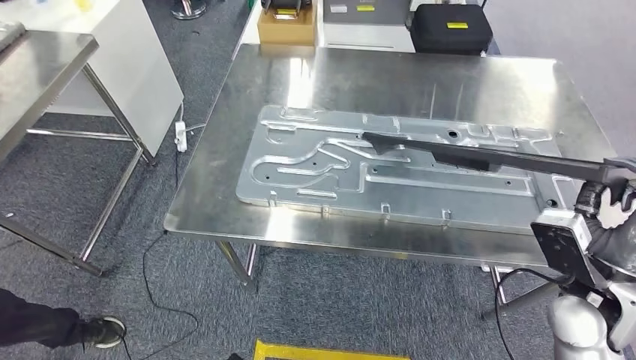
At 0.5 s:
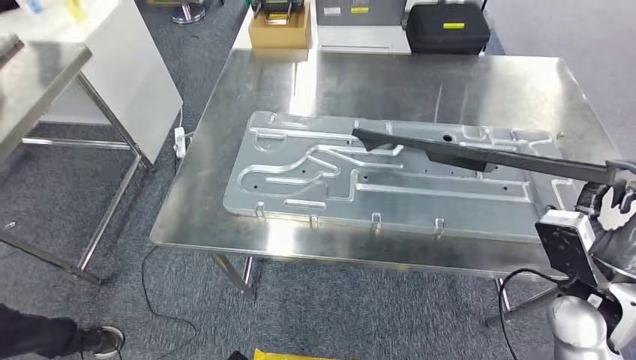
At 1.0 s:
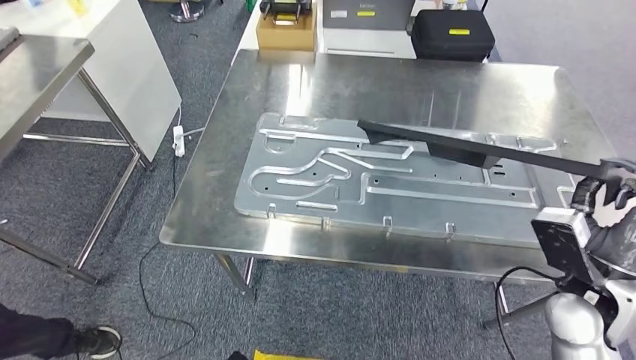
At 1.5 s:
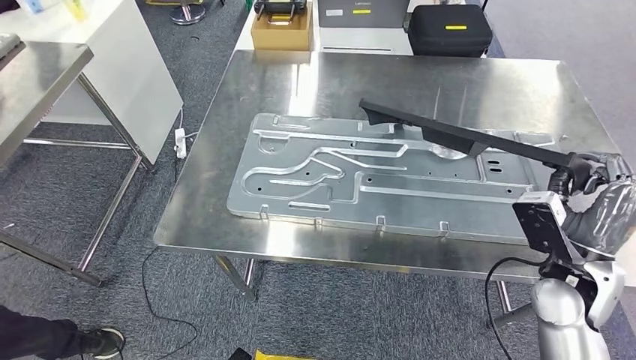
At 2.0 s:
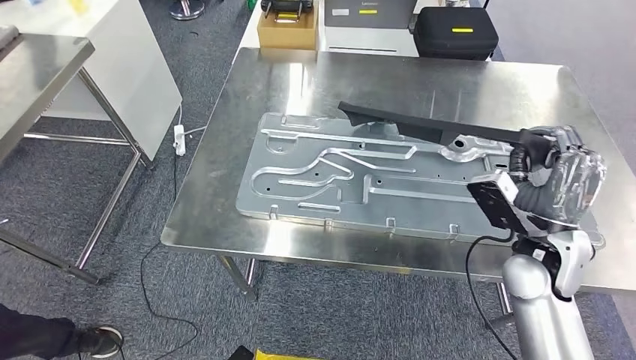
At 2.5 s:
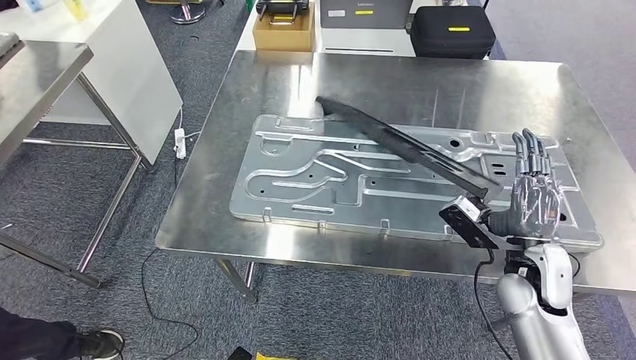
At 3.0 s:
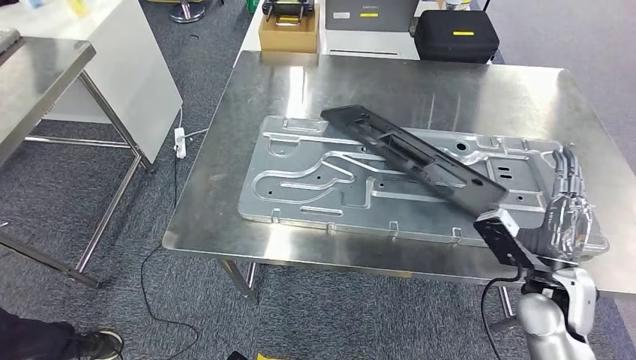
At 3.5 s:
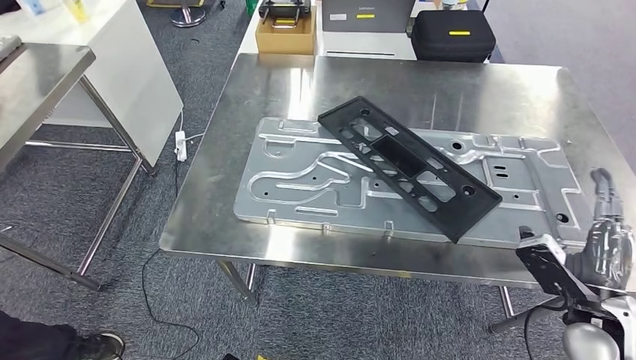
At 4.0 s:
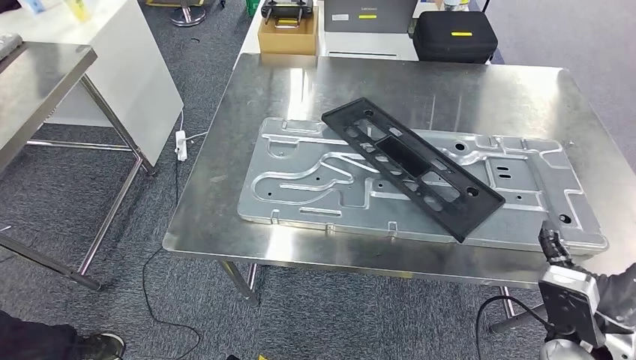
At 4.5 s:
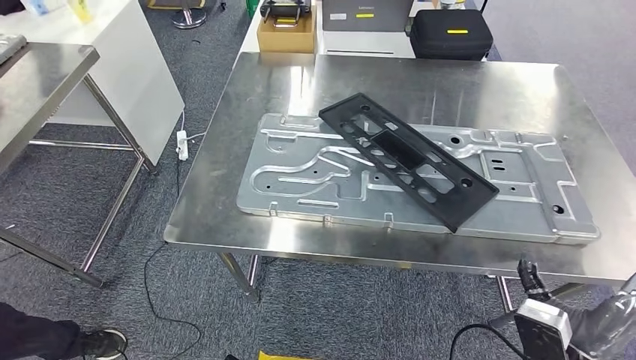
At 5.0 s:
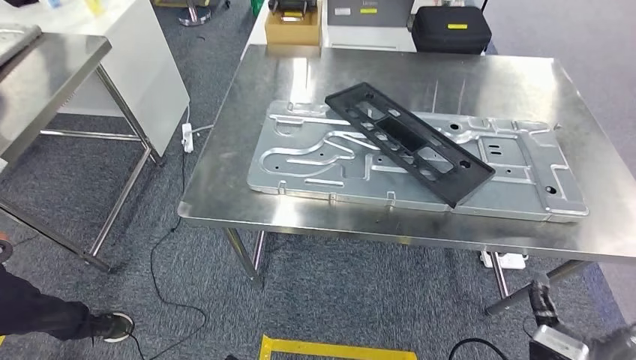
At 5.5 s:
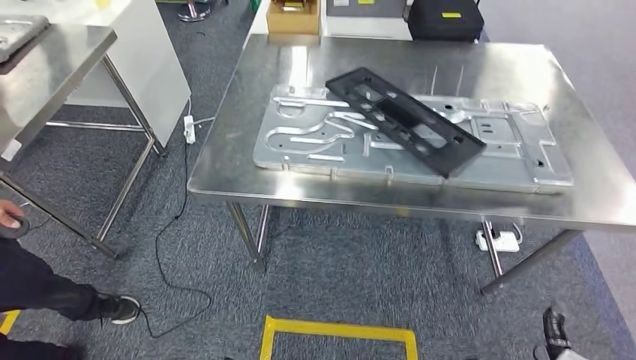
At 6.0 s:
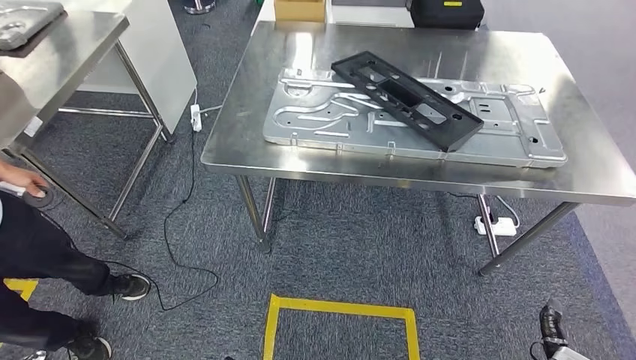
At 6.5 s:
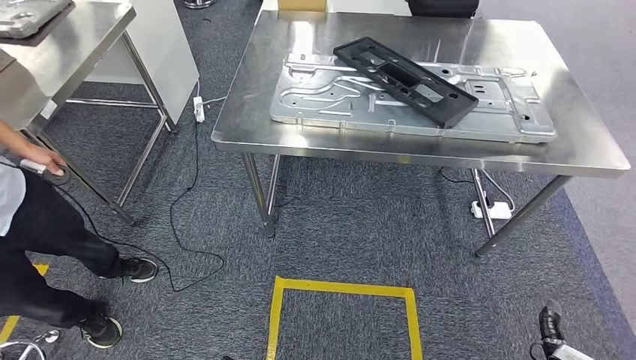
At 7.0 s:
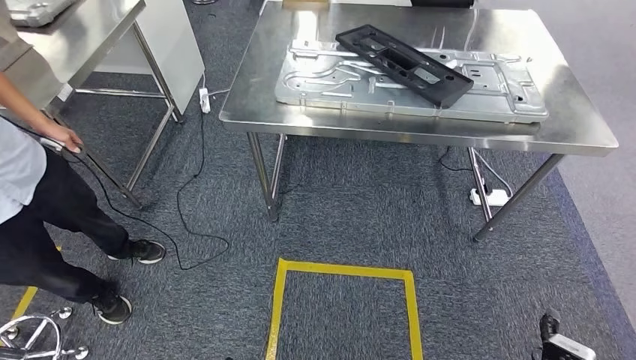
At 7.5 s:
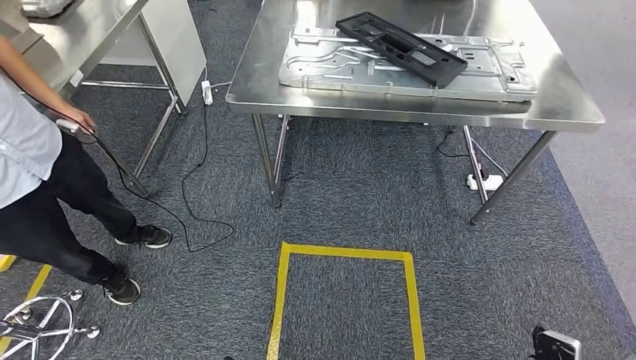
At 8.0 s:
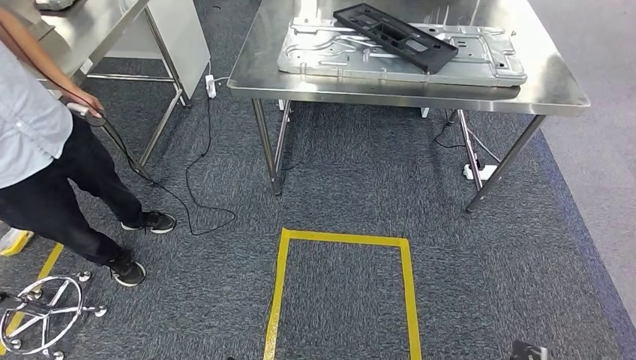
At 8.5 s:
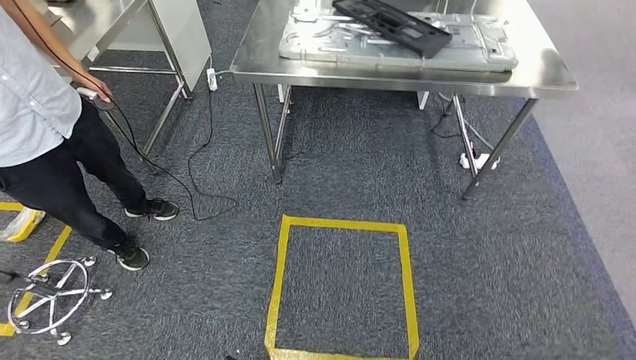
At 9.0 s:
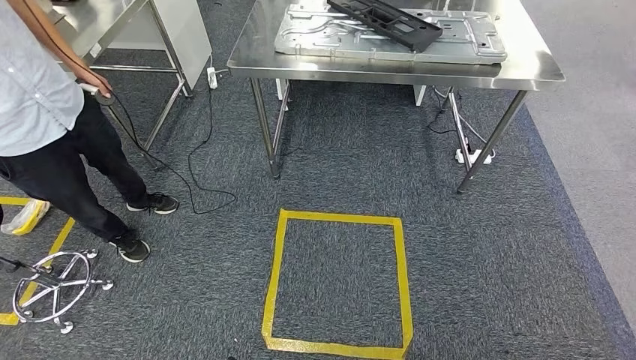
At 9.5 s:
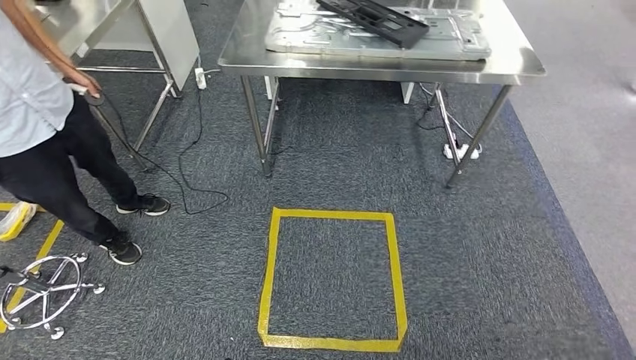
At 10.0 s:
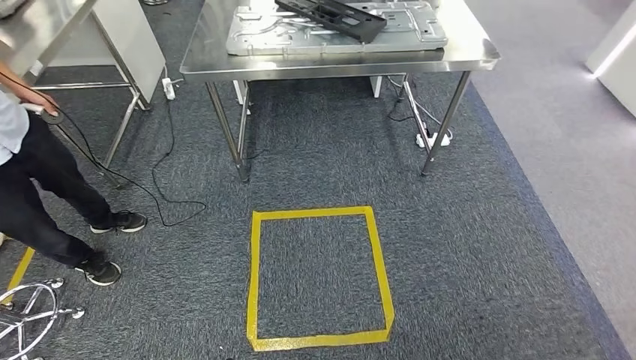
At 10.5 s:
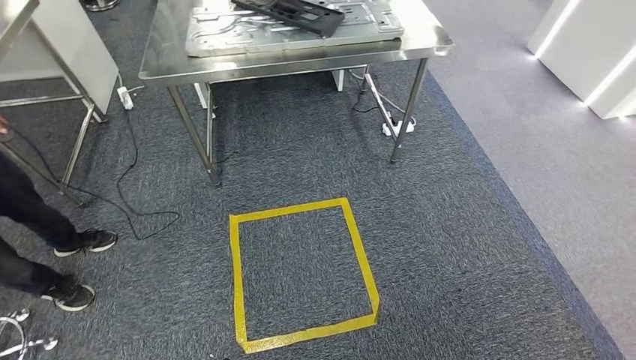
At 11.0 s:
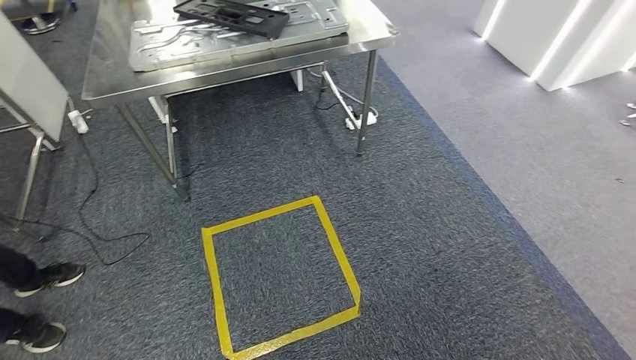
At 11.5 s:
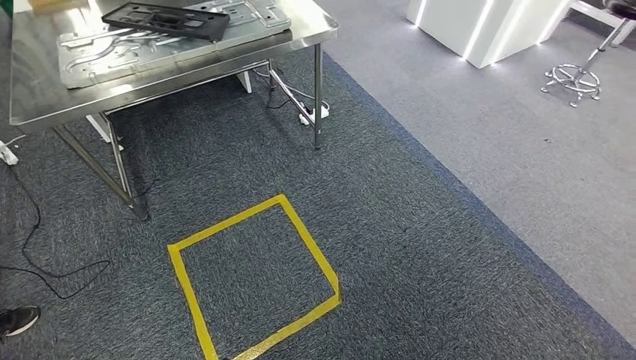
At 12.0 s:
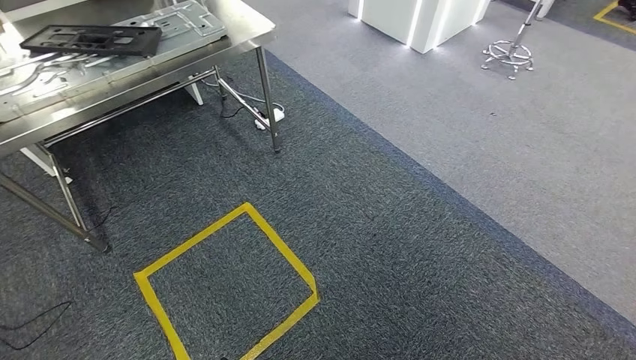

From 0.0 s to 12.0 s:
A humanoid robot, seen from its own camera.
Step, from 0.0 s to 5.5 s: Insert the large material into the corresponding slot on the workbench.

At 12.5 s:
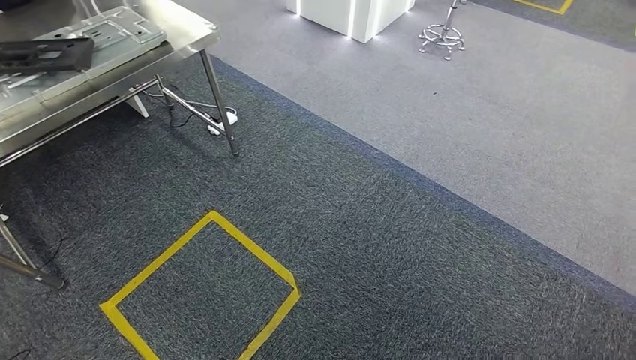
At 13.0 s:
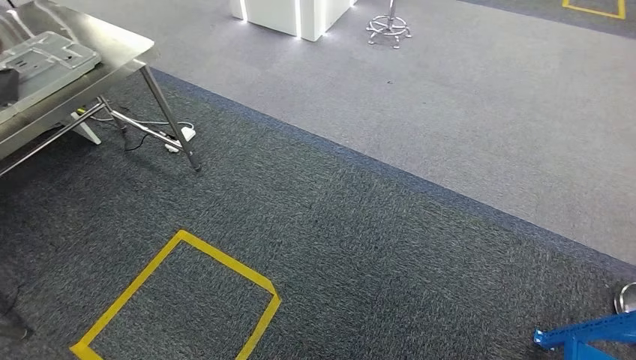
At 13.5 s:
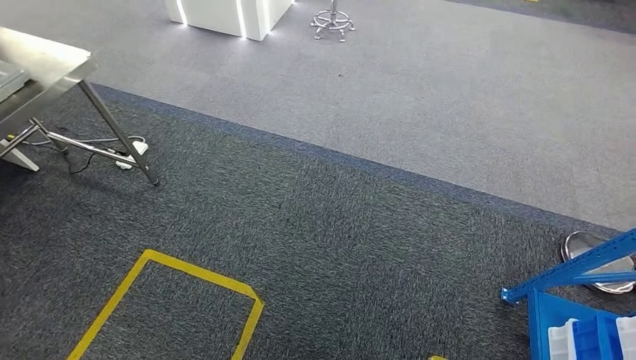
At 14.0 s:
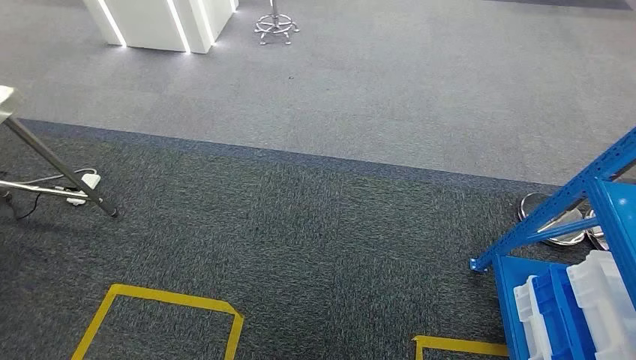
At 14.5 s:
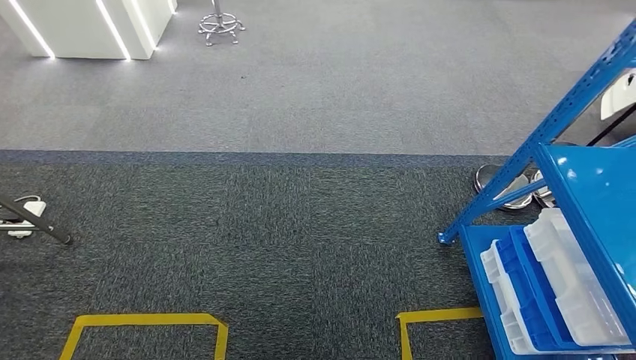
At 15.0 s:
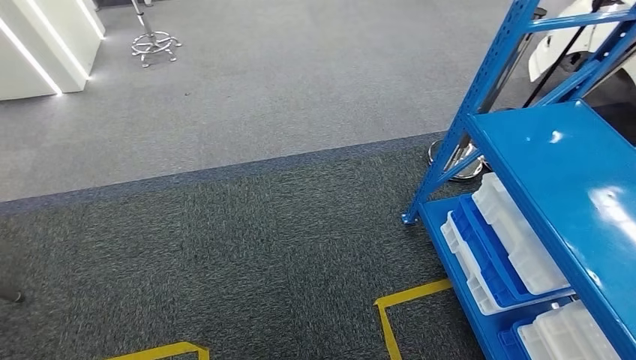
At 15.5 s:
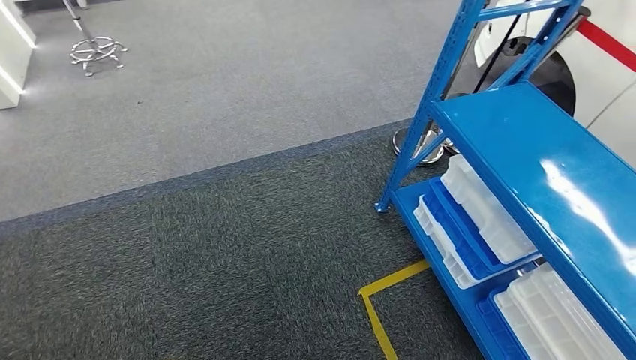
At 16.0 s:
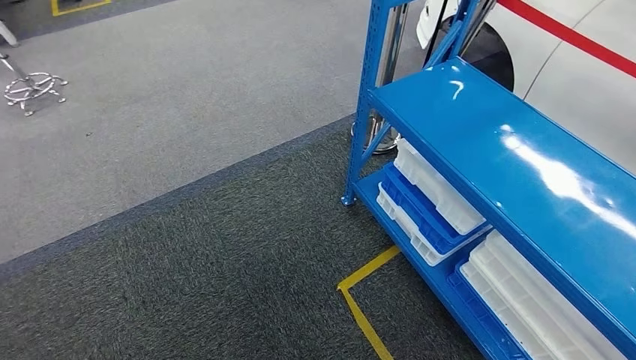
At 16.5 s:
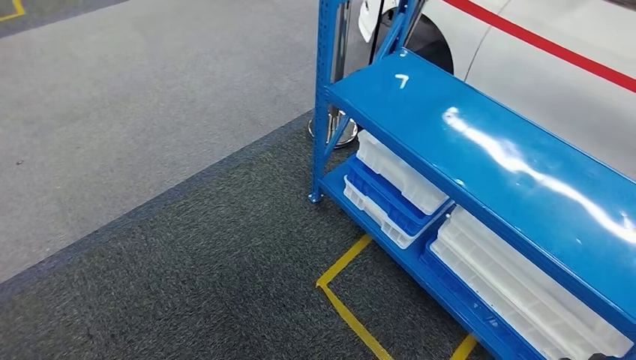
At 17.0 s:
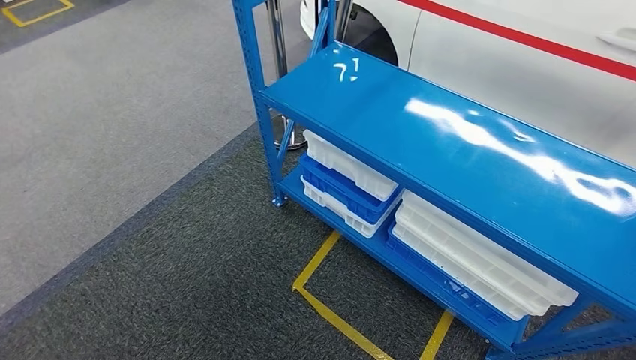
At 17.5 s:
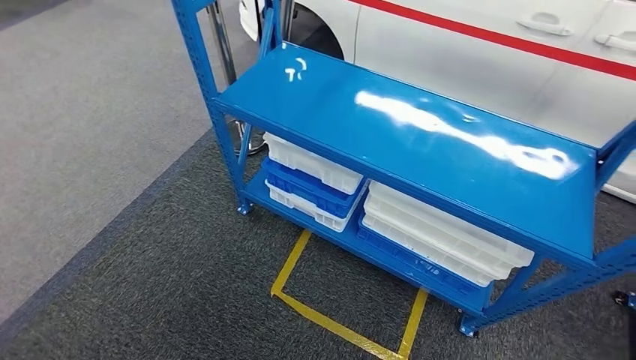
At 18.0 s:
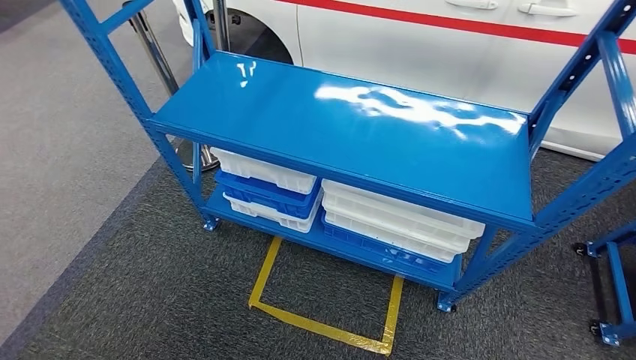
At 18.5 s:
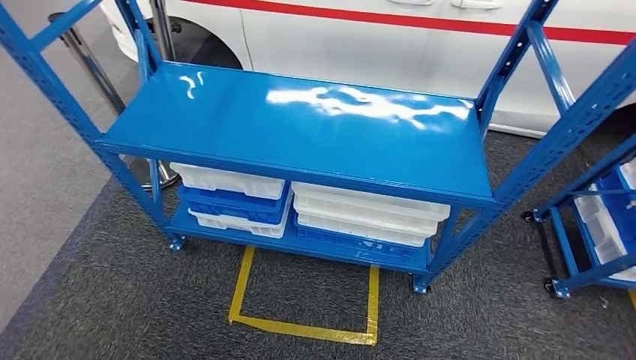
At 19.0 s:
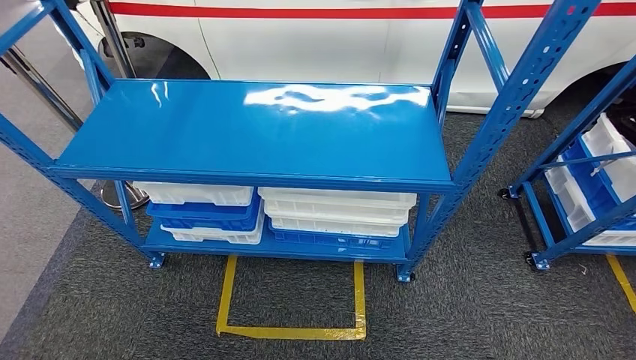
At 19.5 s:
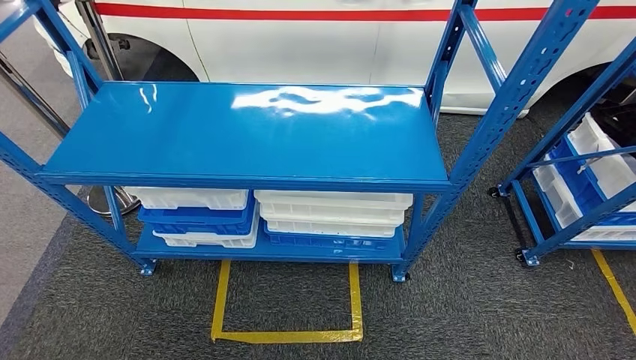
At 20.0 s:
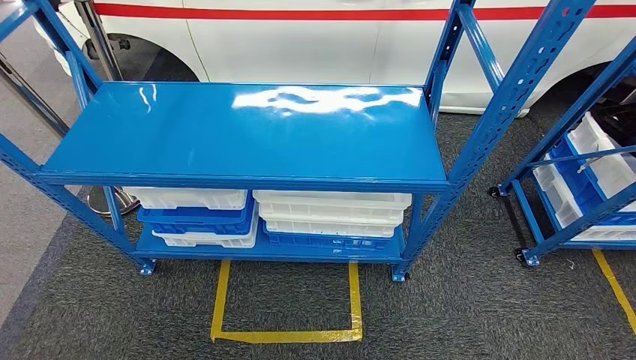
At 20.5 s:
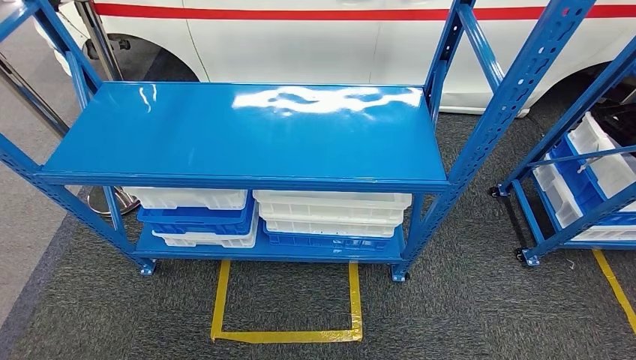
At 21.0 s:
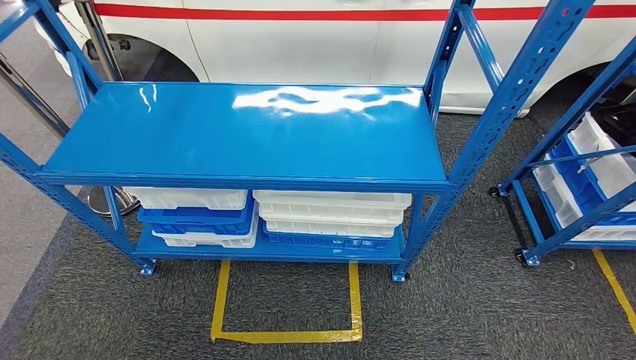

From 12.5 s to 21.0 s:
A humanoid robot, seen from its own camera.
Step, from 12.5 s to 21.0 s: Return to the initial position at the shelf.
